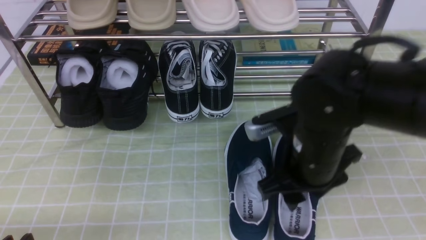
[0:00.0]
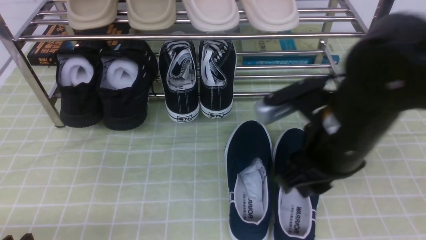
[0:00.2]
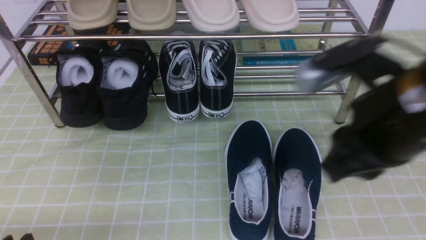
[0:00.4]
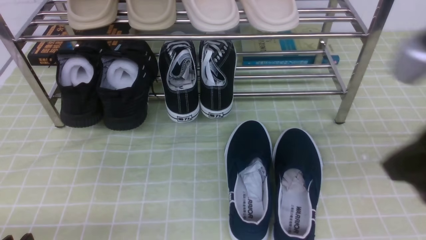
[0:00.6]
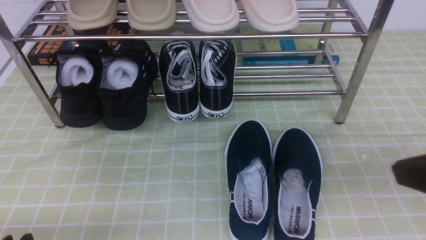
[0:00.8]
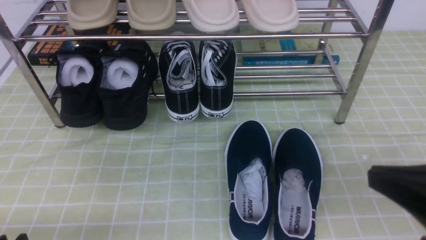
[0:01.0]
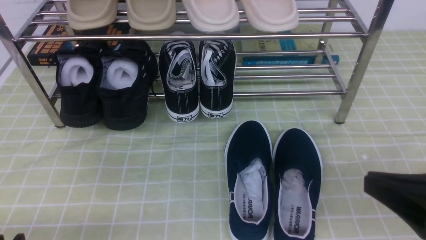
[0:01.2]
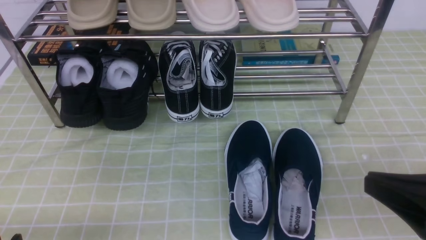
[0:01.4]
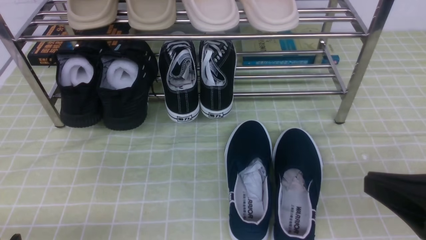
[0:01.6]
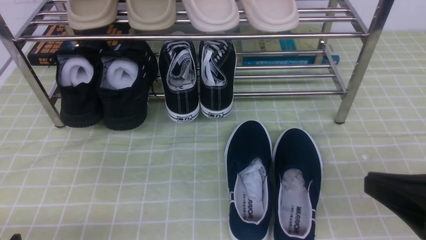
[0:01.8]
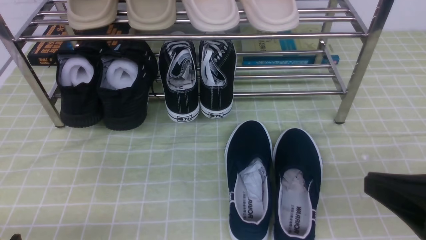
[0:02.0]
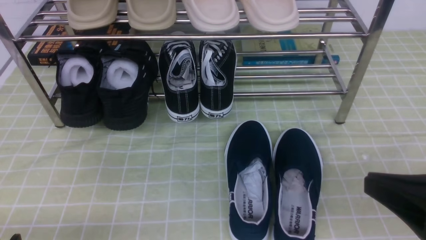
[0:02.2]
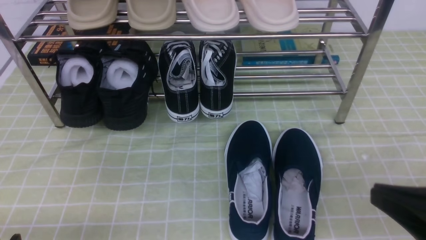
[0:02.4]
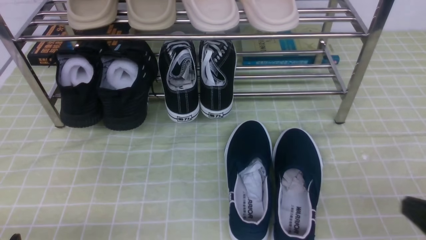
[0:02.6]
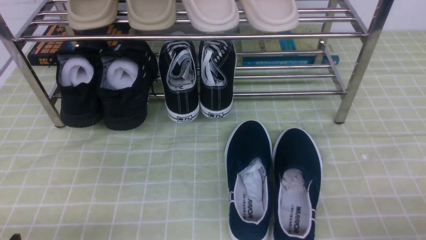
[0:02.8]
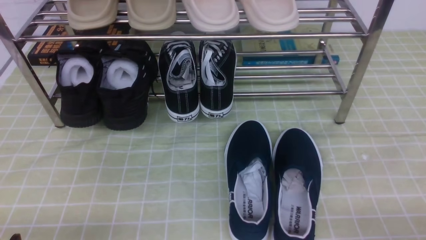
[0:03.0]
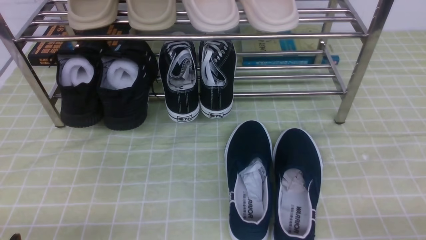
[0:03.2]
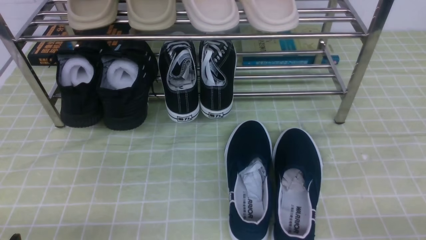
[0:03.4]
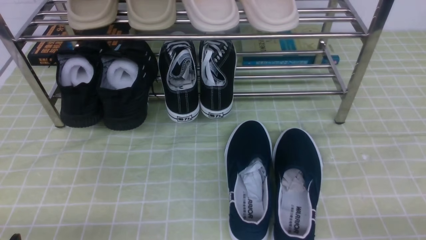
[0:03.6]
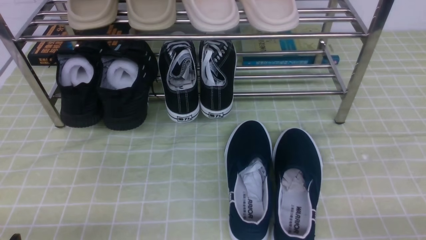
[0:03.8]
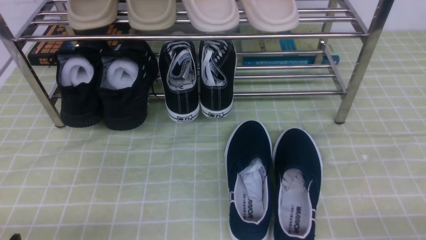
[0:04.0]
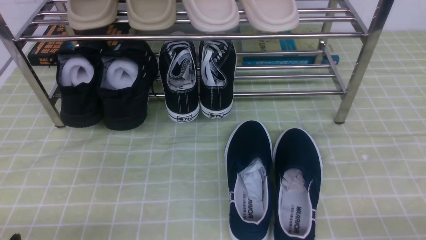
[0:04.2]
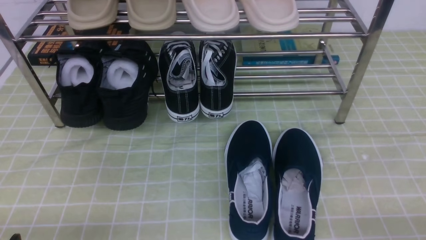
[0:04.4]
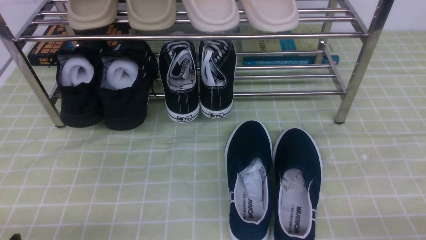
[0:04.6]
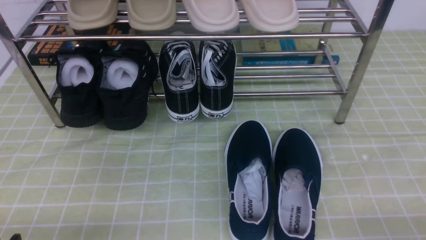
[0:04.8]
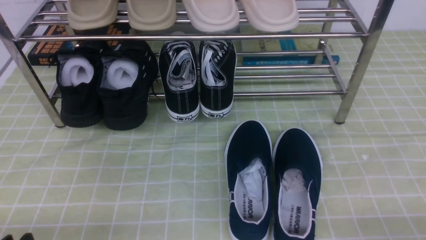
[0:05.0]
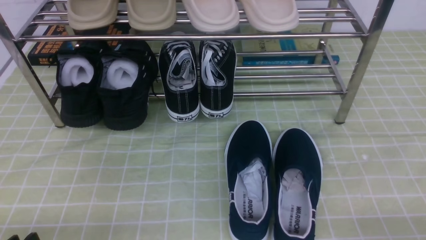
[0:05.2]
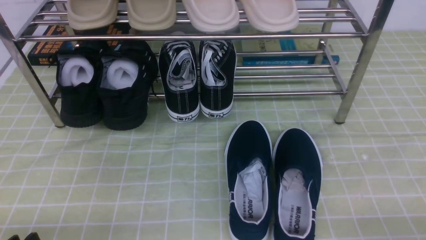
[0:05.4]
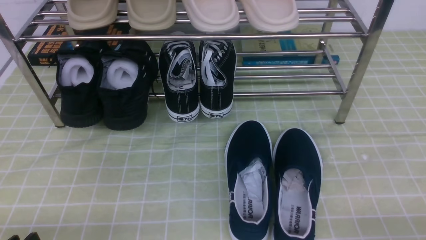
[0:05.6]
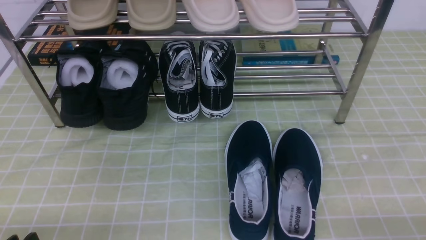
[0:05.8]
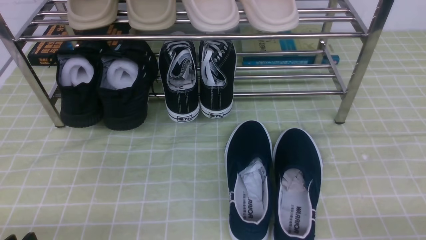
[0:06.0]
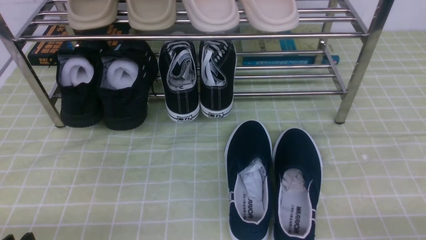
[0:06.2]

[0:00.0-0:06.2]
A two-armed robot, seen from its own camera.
0:00.0 to 0:01.6: The right gripper goes roughly 20 cm backward and to the right, and closes.
0:01.6 to 0:03.2: The right gripper shifts approximately 15 cm downward and to the right.
0:03.2 to 0:04.6: The two grippers keep their place.

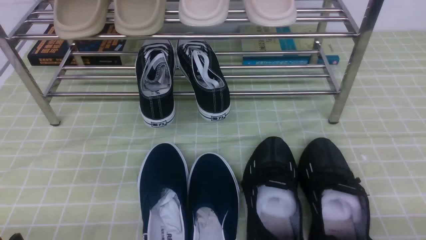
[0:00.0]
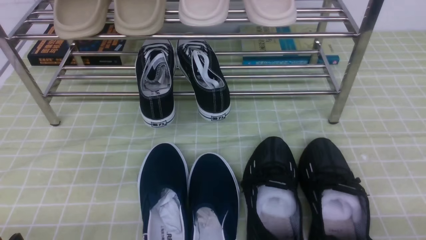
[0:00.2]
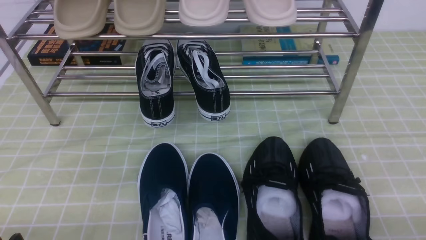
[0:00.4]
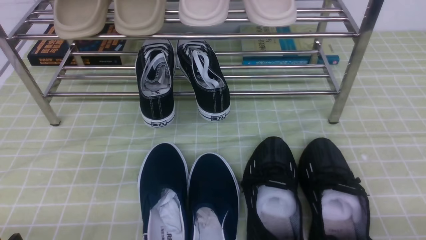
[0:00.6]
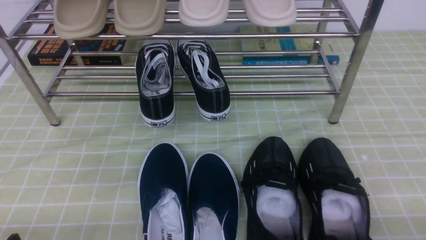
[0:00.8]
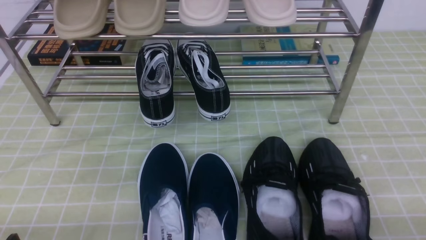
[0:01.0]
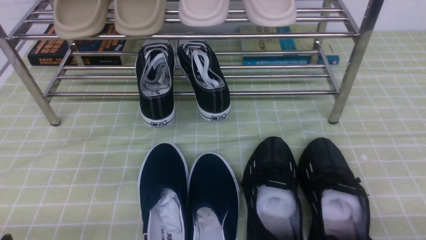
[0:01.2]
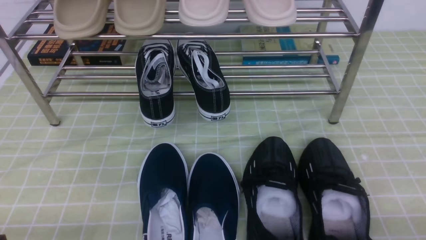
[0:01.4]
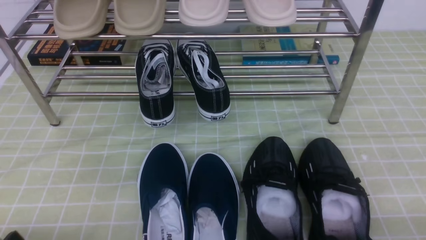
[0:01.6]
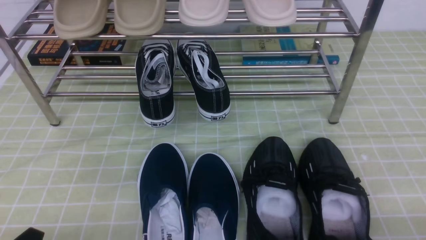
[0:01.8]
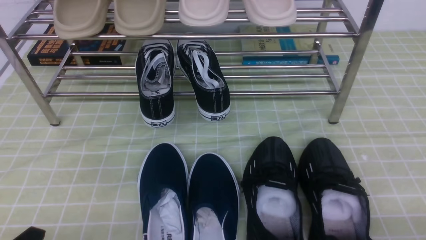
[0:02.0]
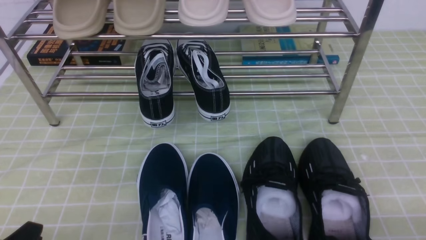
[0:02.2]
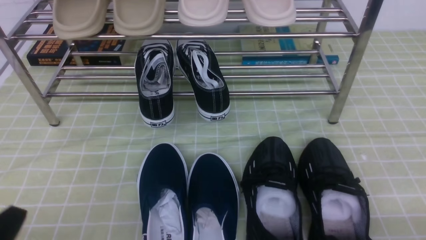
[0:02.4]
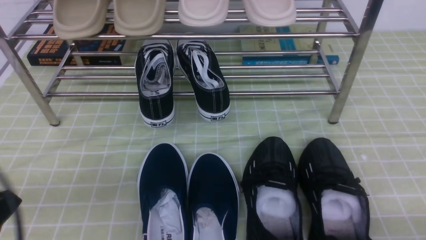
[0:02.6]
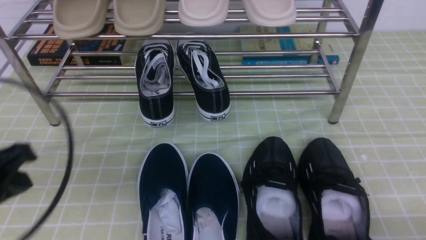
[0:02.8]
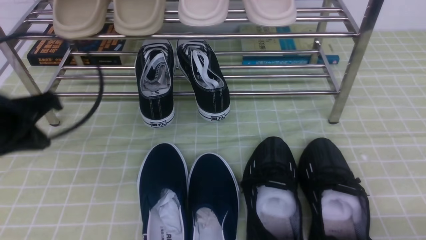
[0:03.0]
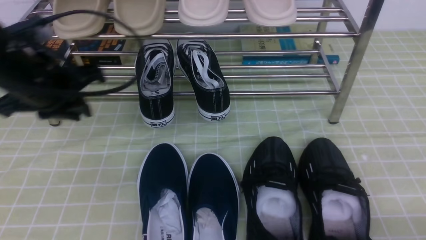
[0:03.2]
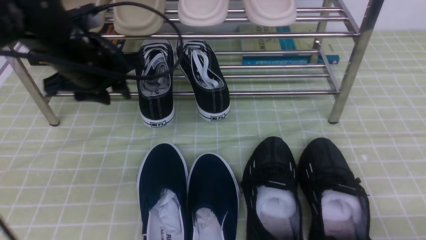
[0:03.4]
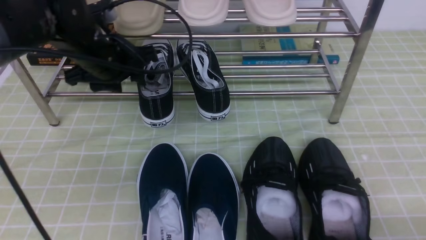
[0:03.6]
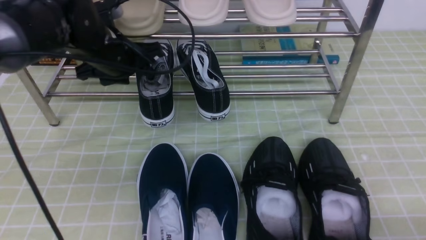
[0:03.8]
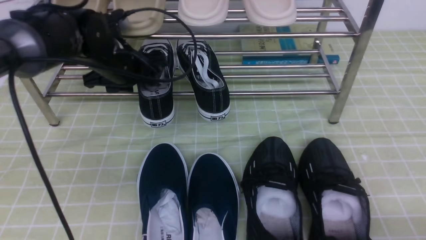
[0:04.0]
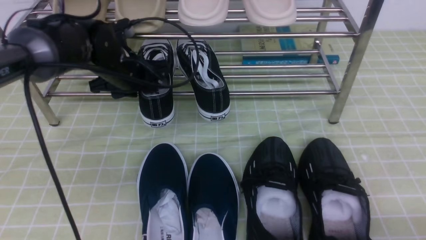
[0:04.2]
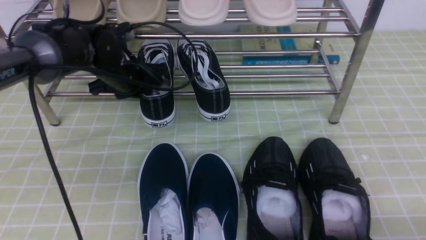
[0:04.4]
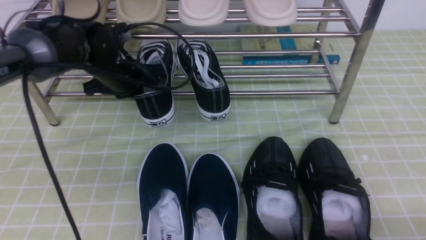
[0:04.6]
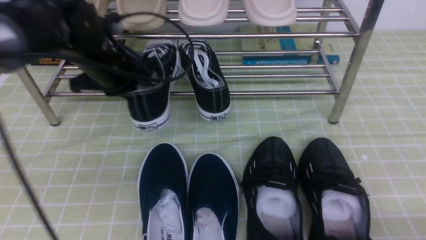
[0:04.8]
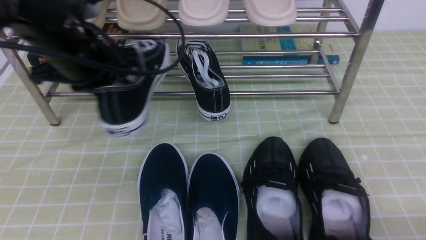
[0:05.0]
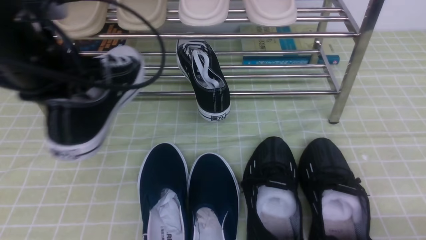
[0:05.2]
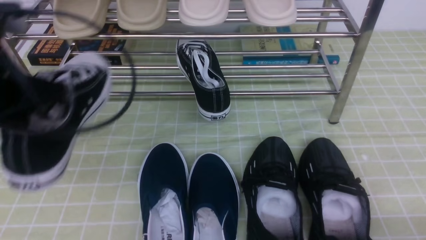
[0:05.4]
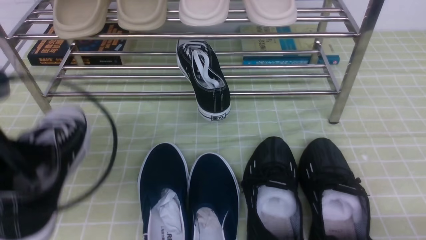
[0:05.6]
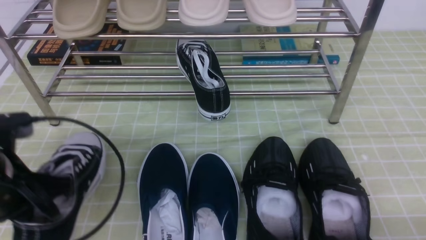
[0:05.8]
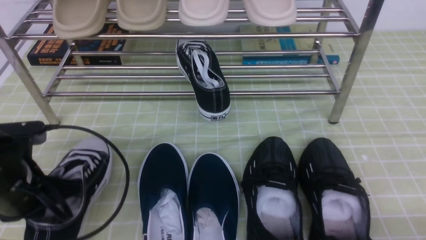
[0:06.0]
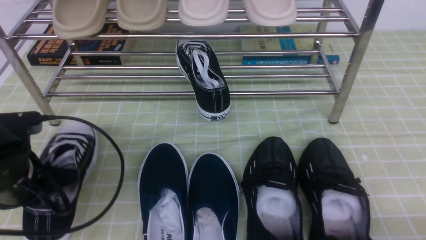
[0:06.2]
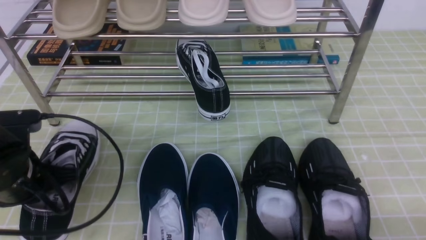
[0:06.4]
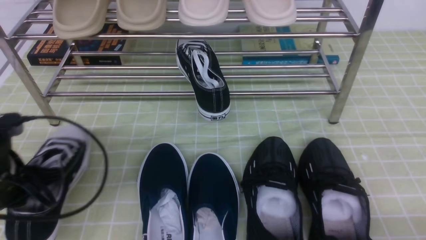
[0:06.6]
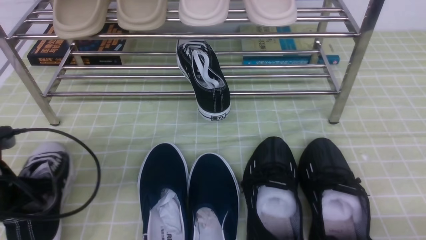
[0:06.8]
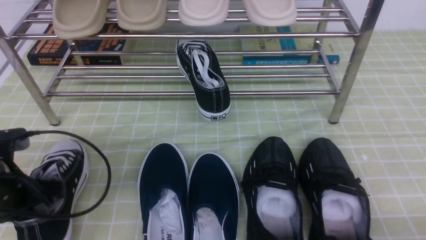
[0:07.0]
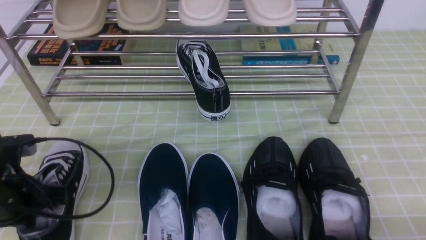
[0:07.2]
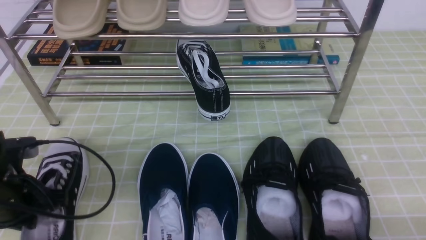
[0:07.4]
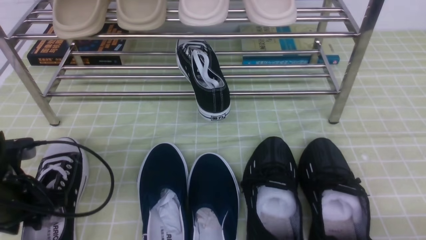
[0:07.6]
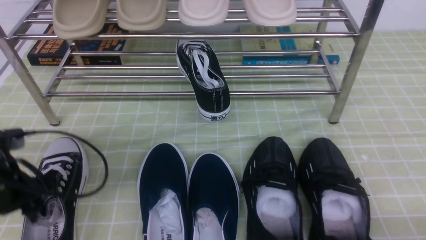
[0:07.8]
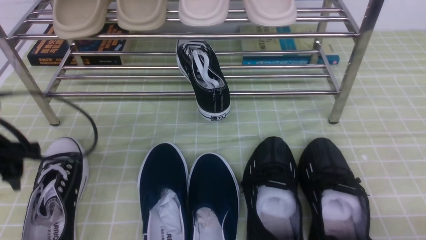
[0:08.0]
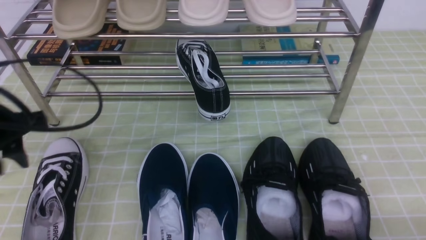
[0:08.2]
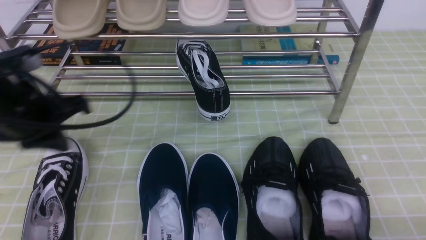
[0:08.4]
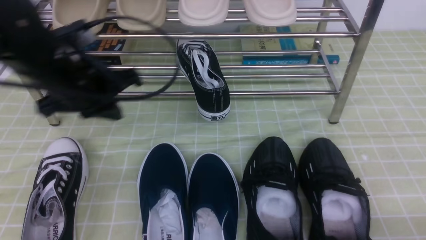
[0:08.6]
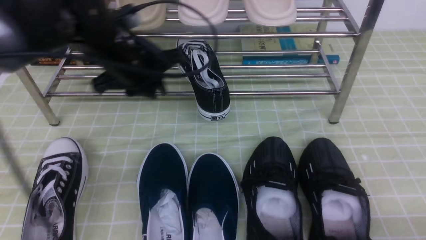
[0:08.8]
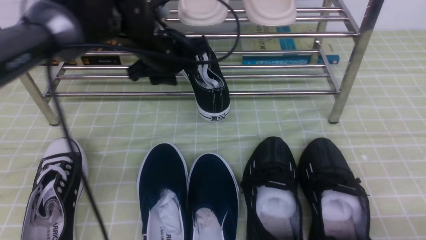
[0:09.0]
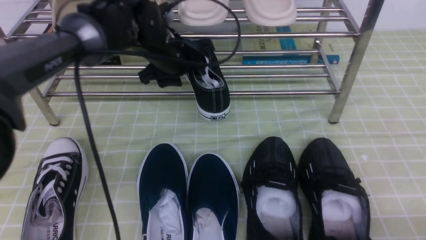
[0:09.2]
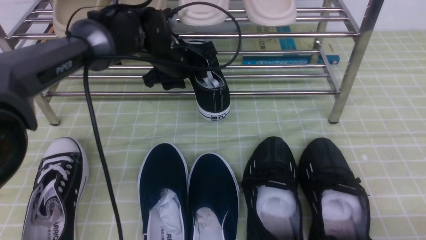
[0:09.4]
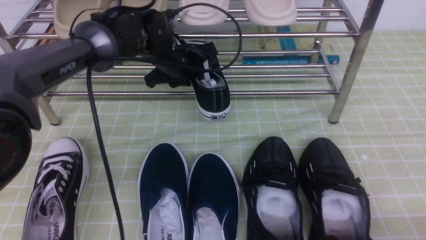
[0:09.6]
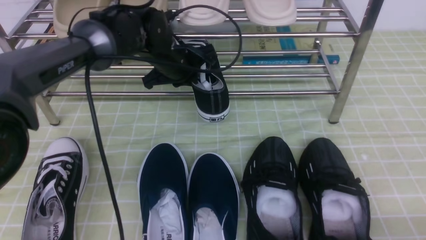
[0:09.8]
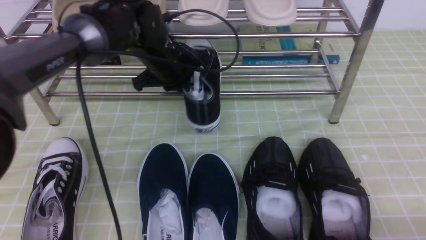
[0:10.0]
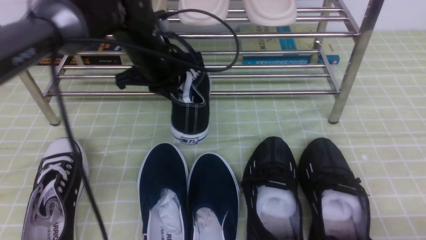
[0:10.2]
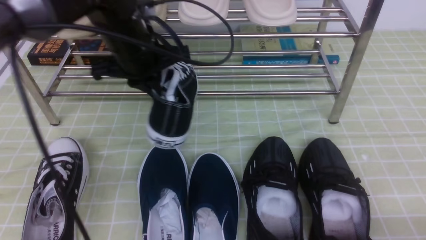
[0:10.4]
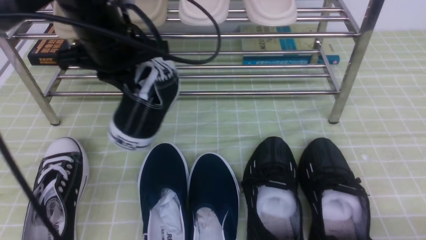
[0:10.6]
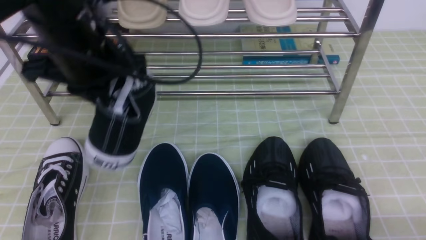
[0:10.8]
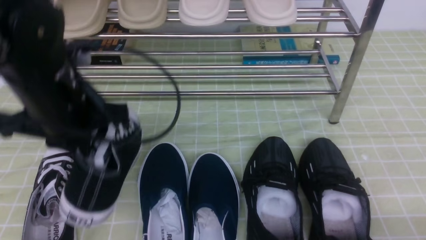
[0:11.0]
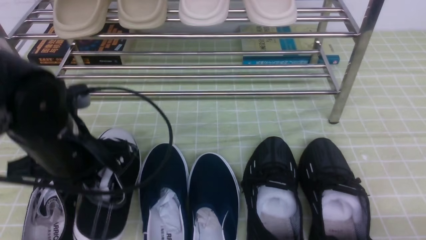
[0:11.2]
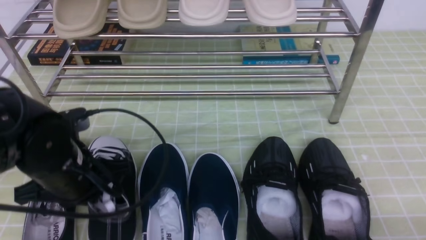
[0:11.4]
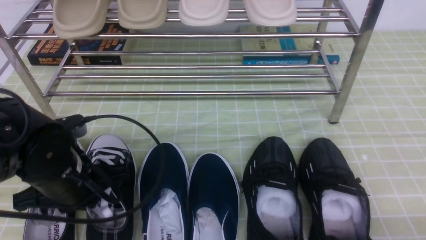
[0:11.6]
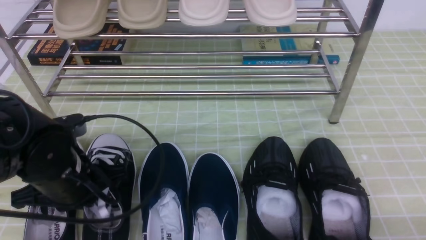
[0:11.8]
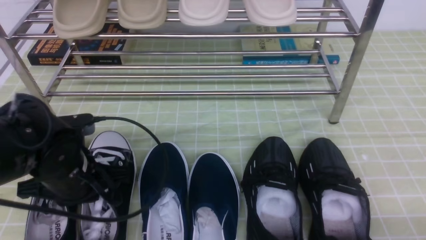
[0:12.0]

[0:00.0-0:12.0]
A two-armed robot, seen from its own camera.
Step, 0:00.0 to 0:04.2: use the left arm to clamp a shoe on the left side of the shoe rack.
Step, 0:04.6 to 0:08.0: Use your left arm to remove the clamped shoe from the shoe rack and put it down.
Step, 0:08.2 to 0:09.8: use the left arm to clamp a shoe on the left side of the shoe rack.
0:01.6 to 0:03.0: The left gripper travels forward and upward by about 25 cm, and closes up.
0:03.0 to 0:04.4: The left gripper goes approximately 20 cm forward, to the right and downward, and opens, then closes again.
0:04.4 to 0:06.0: The left gripper heads backward and to the left, covering about 20 cm, and closes its fingers.
0:06.0 to 0:07.6: The left gripper ends up about 5 cm from where it was, and opens.
0:07.6 to 0:09.0: The left gripper heads to the right, forward and upward, covering roughly 25 cm, and closes, then reopens.
0:09.0 to 0:10.4: The left gripper shifts by approximately 5 cm, and closes.
0:10.4 to 0:12.0: The left gripper moves downward, backward and to the left, some 20 cm.
